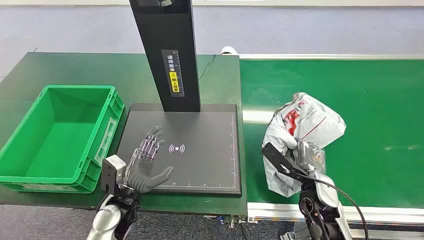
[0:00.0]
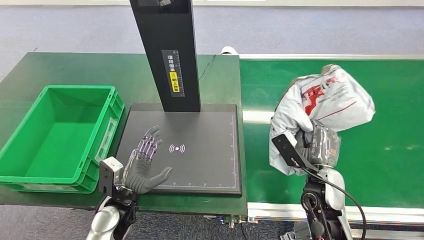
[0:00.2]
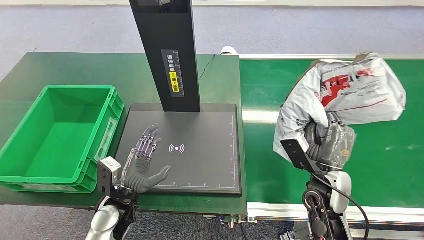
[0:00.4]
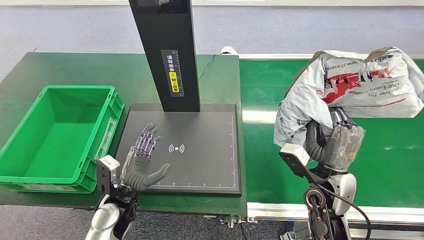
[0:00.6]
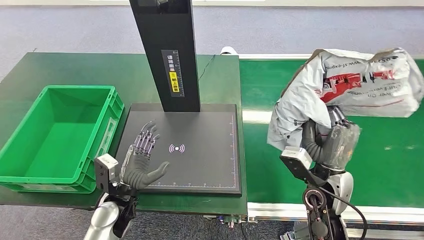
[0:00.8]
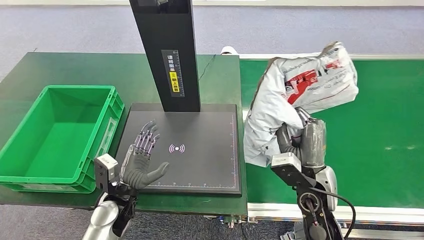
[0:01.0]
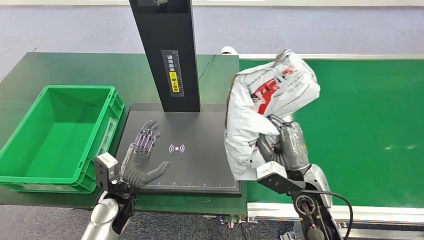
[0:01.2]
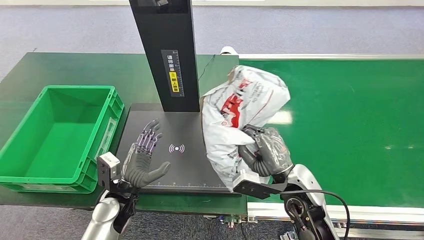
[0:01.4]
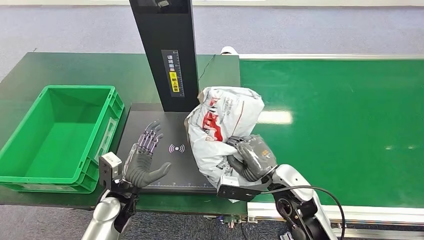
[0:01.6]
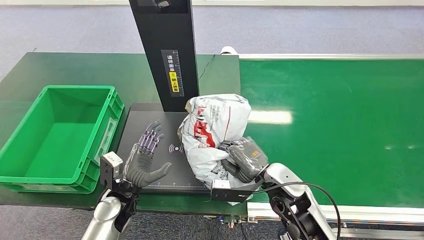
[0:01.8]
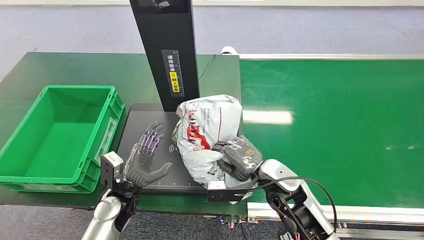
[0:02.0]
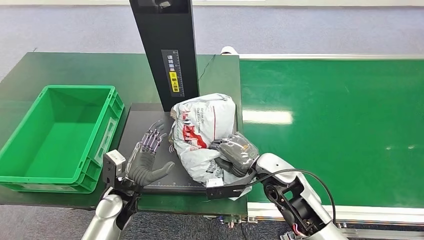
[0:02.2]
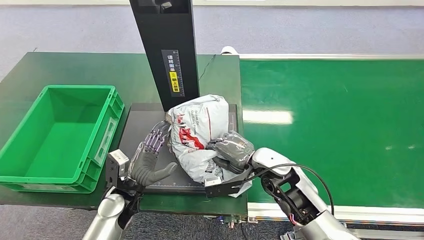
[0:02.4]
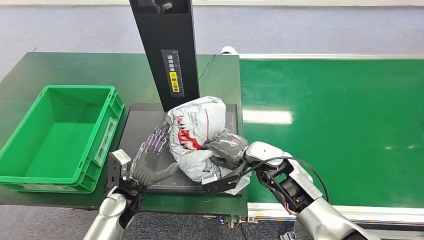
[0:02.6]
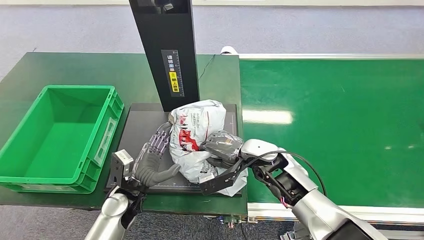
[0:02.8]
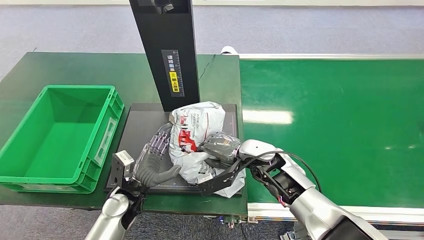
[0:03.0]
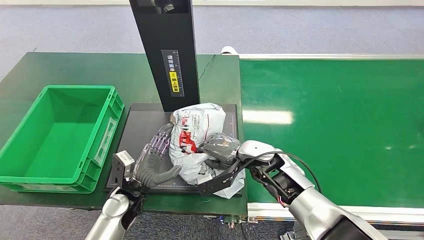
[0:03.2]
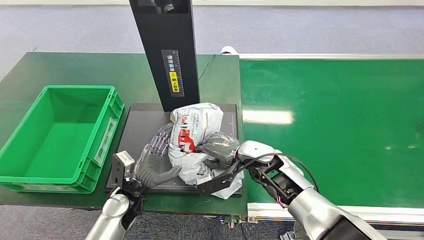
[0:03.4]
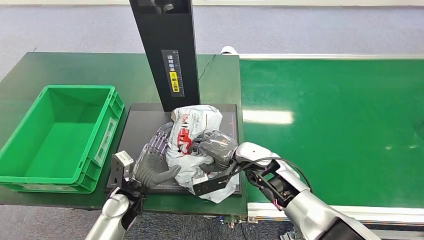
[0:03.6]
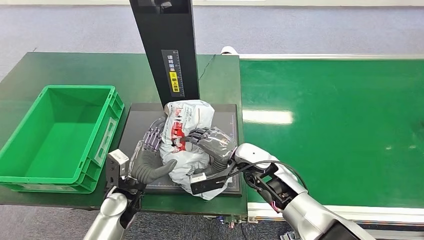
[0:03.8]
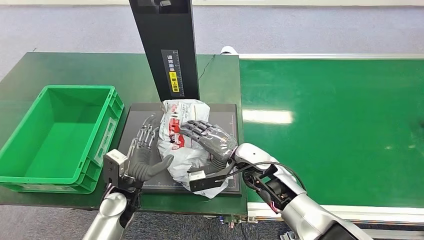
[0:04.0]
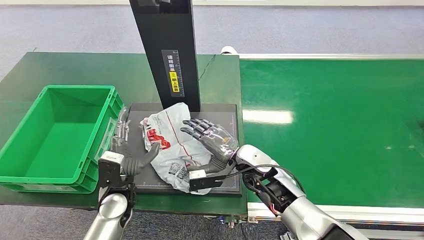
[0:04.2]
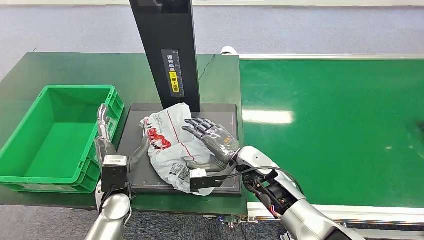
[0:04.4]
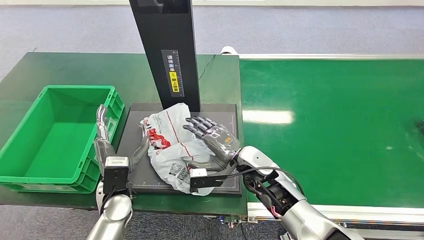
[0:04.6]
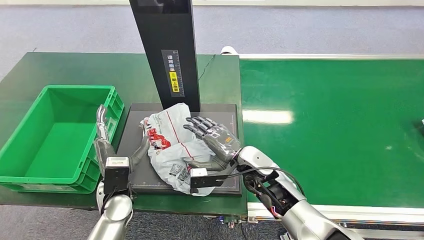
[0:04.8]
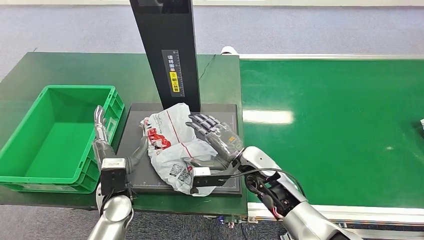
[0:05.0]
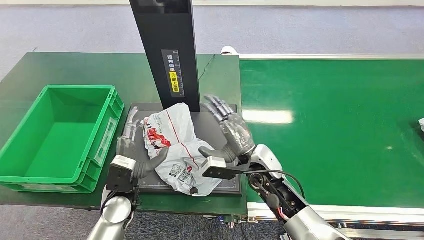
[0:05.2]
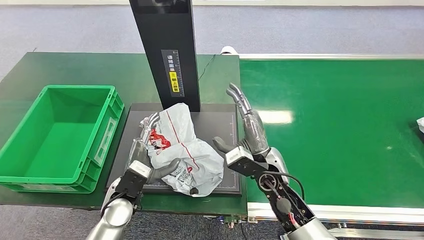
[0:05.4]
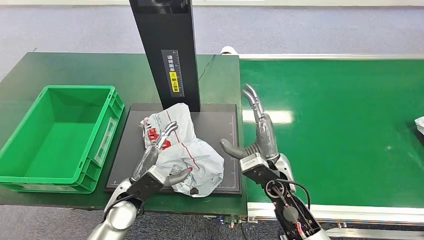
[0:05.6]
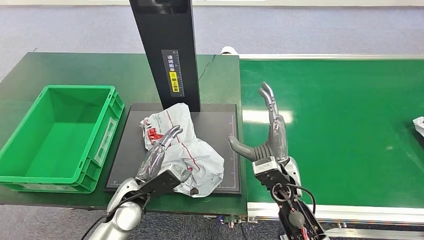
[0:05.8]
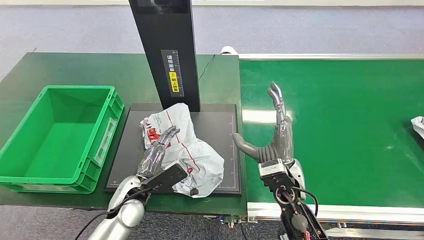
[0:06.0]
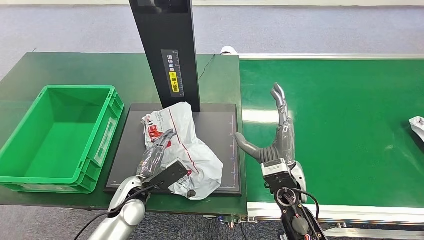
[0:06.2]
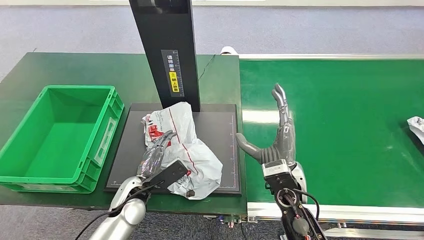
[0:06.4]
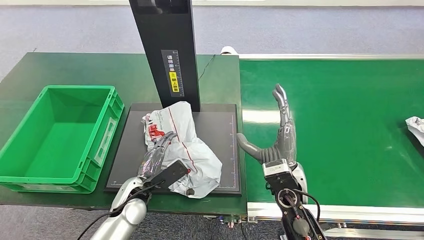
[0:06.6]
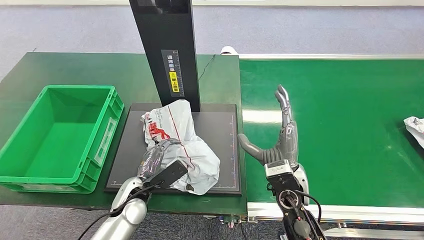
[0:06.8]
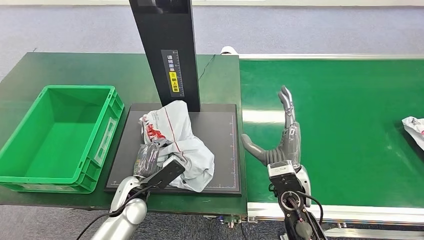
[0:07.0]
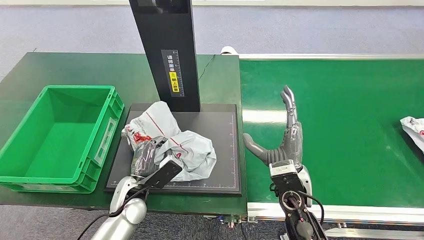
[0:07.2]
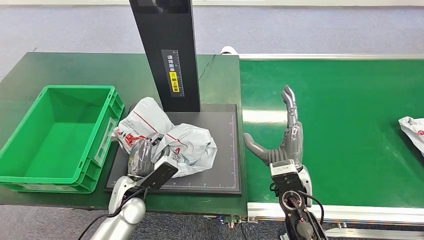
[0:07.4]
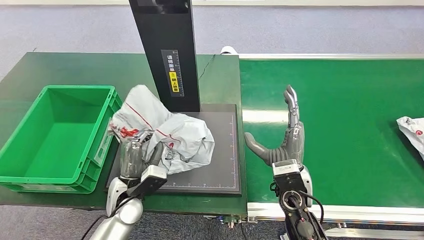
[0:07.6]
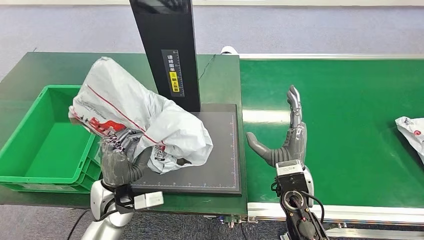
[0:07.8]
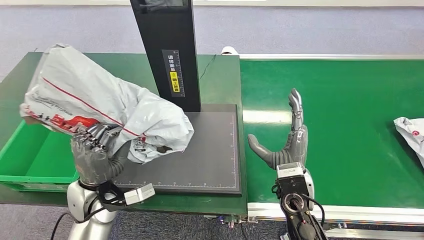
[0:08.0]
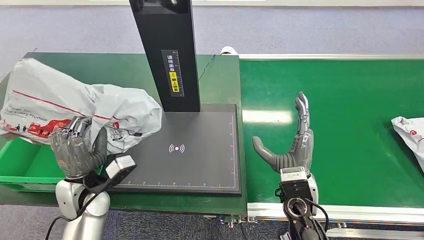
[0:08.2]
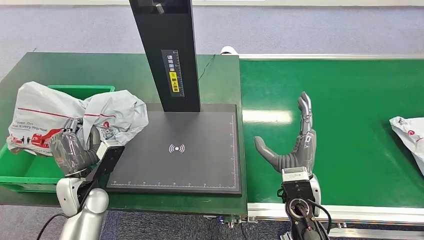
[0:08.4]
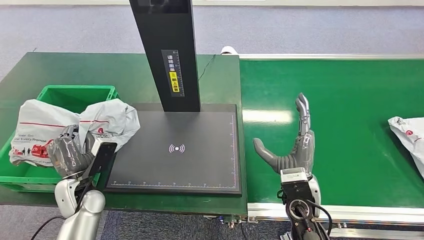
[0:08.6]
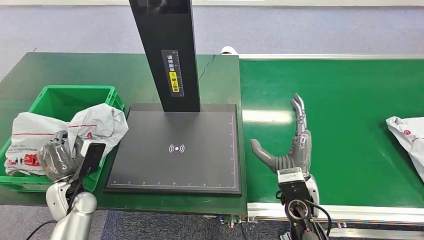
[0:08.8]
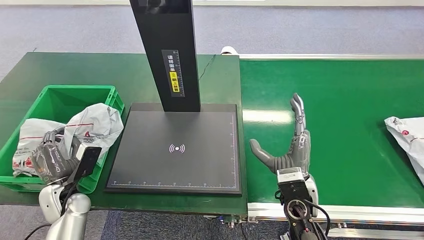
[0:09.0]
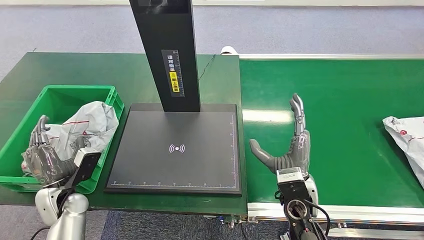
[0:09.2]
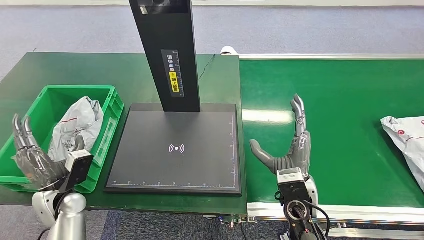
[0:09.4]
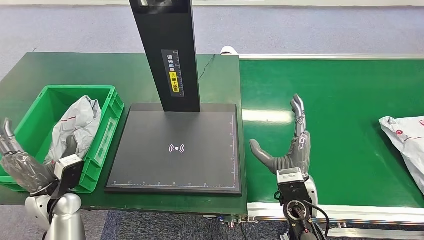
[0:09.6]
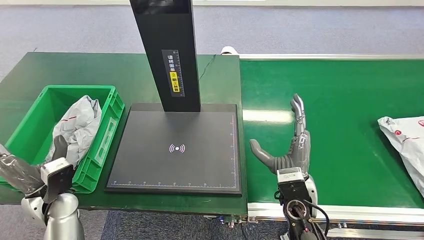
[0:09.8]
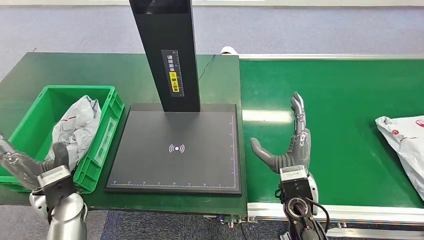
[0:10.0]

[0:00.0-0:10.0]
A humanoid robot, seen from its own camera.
Step, 0:00.0 to 0:00.4: Pick up the package from the conveyor belt.
Step, 0:05.0 to 0:05.2: Place the package onto the inbound machine.
0:01.4 to 0:02.8: The right hand heads forward, covering about 10 cm.
0:04.2 to 0:05.8: The right hand goes roughly 5 cm backward.
0:05.8 to 0:07.2: The hands make only small movements.
0:08.6 to 0:10.0: The left hand ends up about 5 cm from where it was.

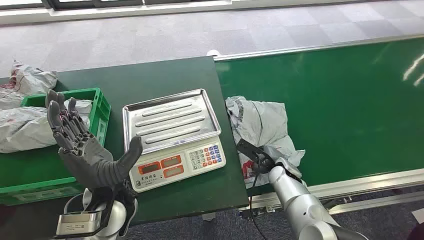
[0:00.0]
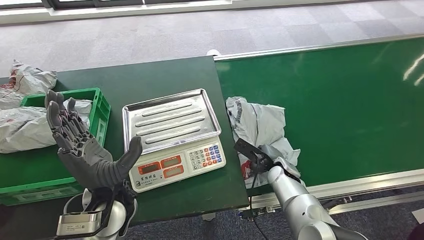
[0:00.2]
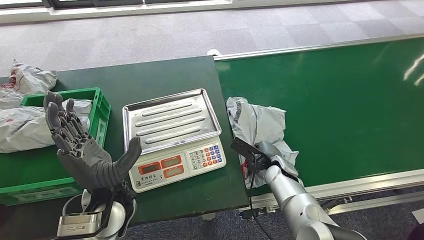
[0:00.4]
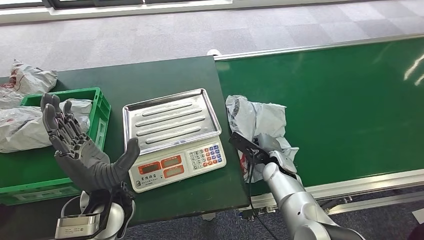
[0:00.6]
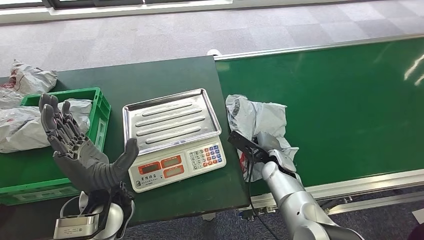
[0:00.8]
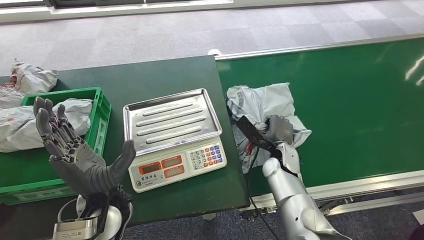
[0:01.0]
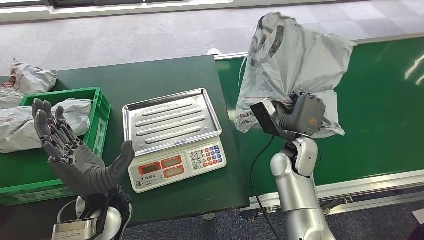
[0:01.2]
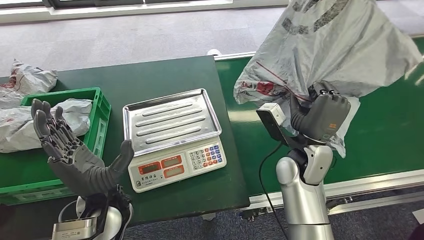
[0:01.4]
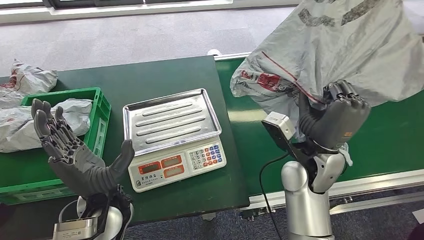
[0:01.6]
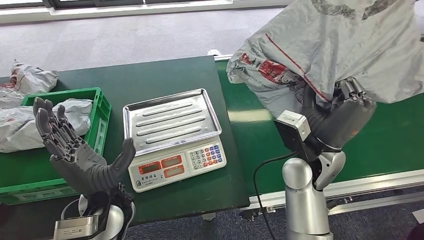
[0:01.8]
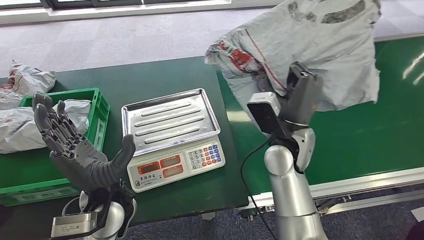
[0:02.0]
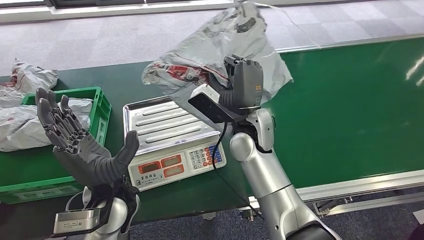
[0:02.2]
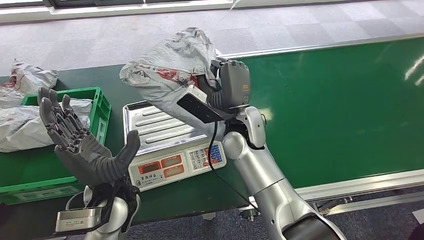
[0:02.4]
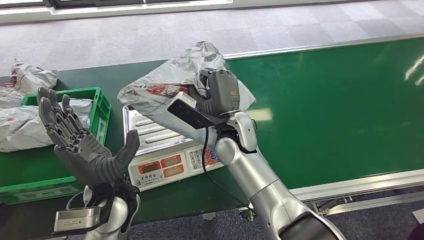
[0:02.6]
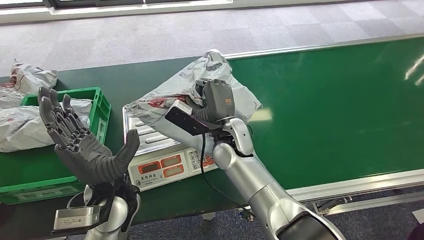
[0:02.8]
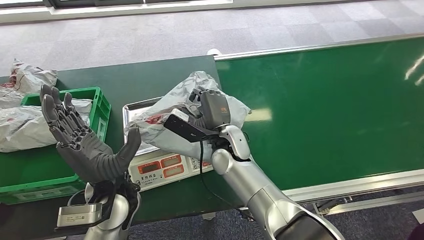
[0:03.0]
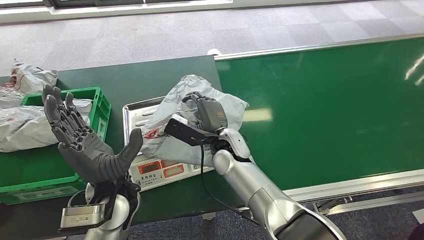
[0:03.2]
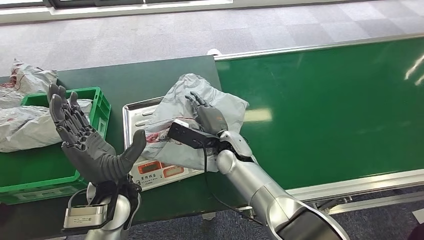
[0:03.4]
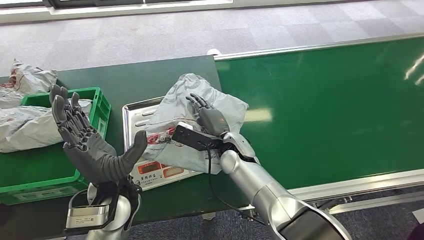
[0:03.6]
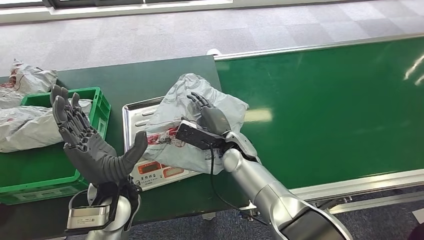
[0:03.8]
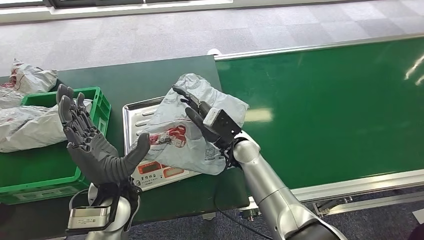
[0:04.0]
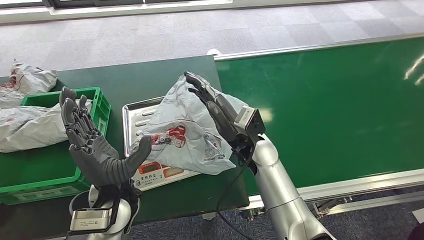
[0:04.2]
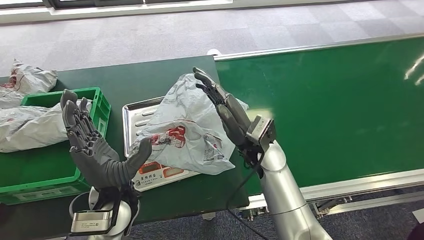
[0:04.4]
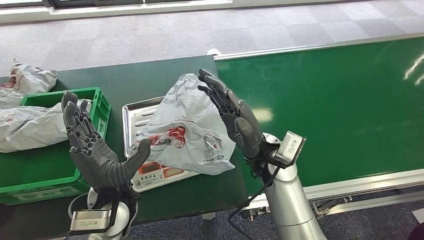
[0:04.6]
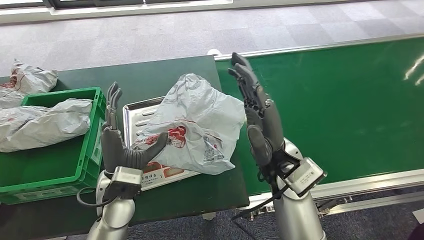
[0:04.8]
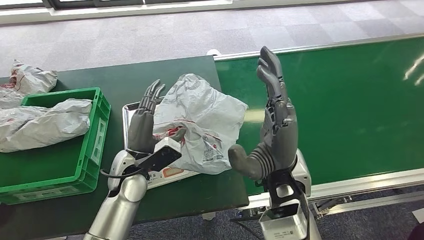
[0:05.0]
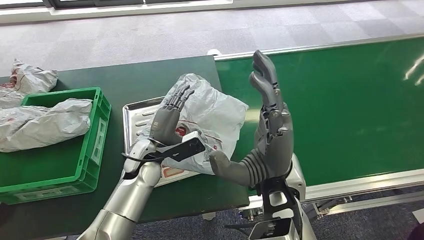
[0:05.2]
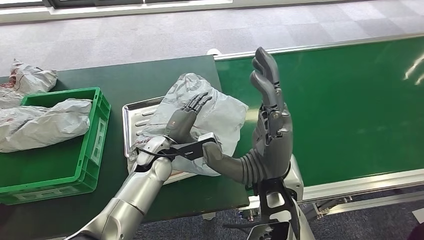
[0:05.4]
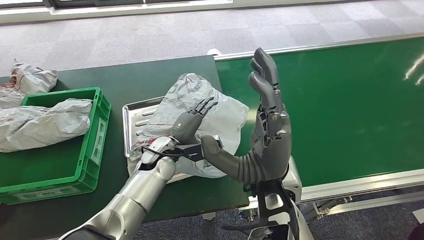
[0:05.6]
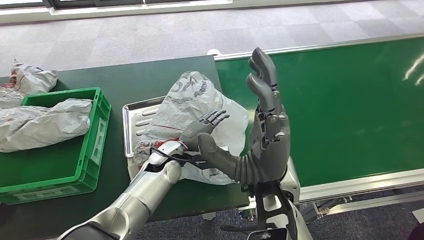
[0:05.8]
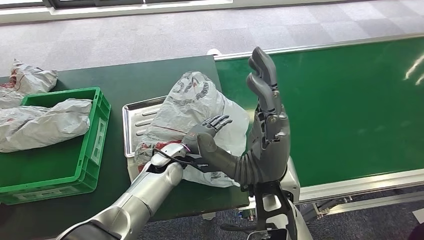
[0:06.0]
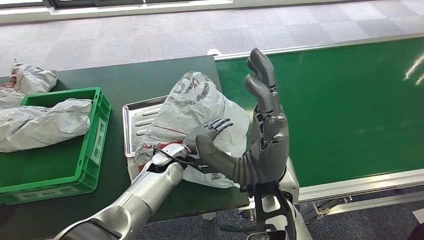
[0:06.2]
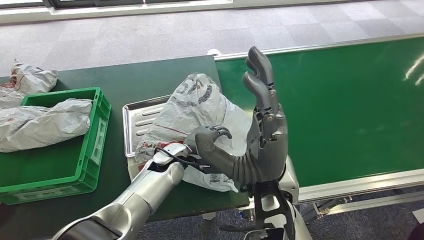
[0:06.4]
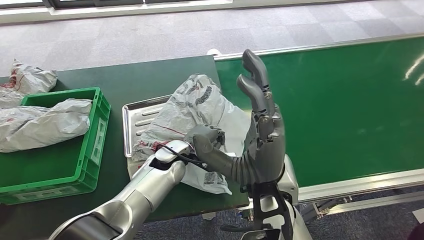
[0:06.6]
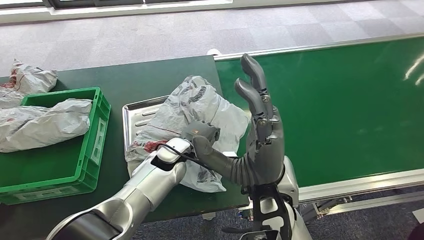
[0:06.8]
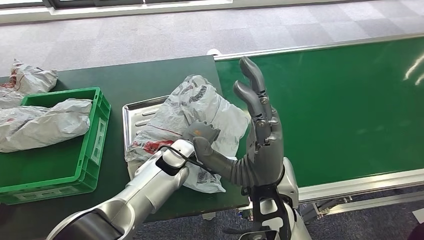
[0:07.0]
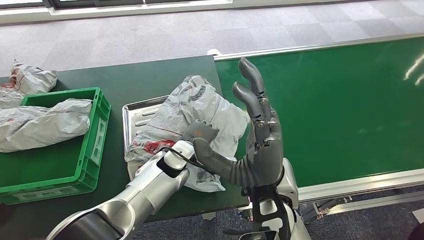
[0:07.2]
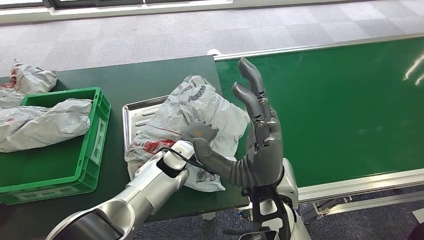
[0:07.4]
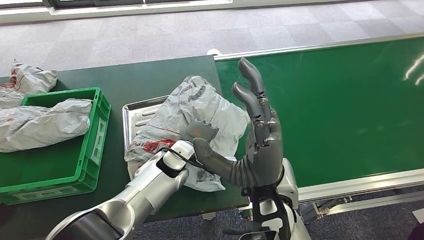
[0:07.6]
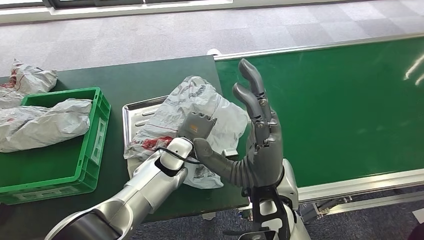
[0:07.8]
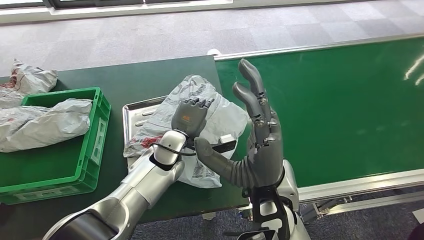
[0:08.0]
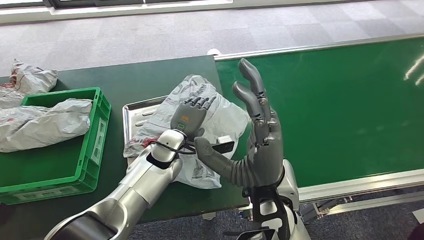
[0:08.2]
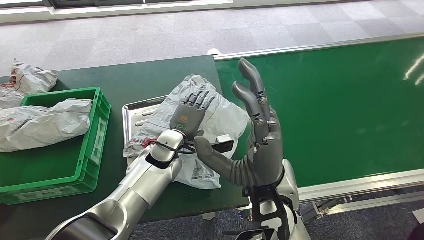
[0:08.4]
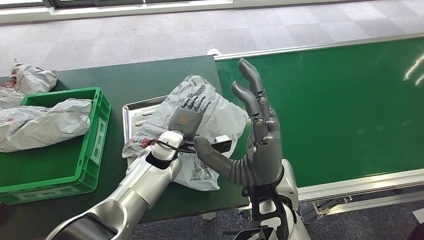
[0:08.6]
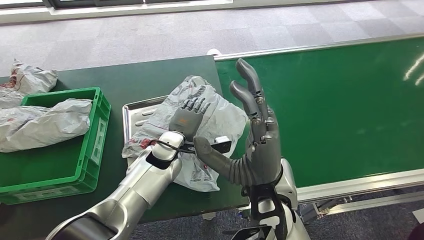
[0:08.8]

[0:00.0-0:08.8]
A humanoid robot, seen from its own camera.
Step, 0:00.0 to 0:01.4: Pick up the package from the conveyor belt.
Step, 0:01.6 to 0:05.0: Place the package onto the inbound machine.
0:03.0 to 0:04.4: The right hand is displaced to the right by approximately 10 cm.
0:04.4 to 0:05.8: The left hand travels forward, downward and to the right by approximately 15 cm, while the right hand travels backward and upward by approximately 15 cm.
0:07.4 to 0:08.8: The hands move only a little.
